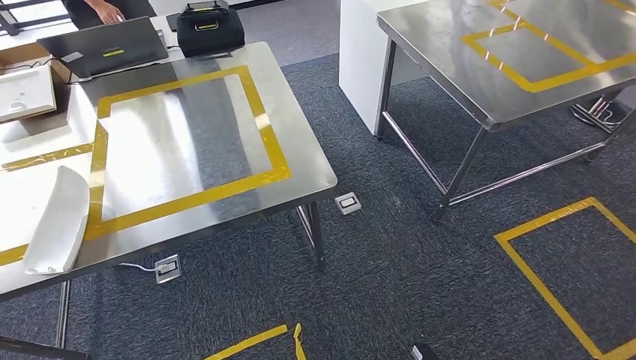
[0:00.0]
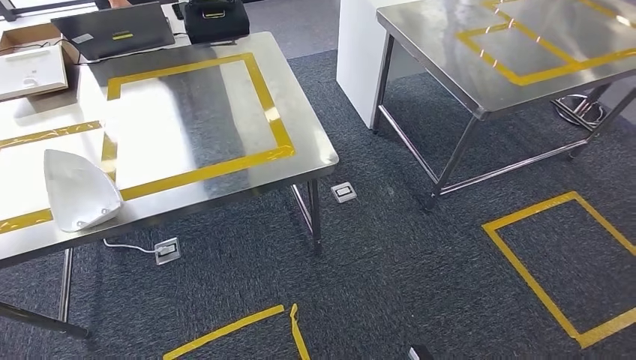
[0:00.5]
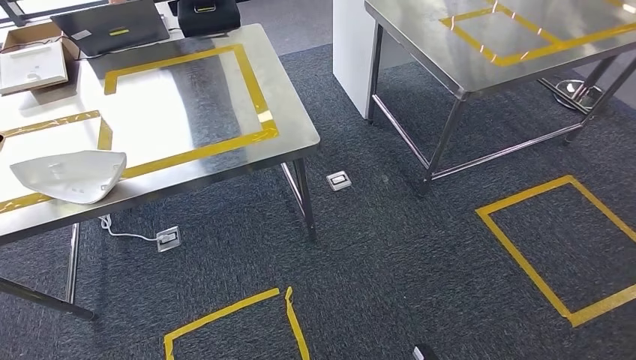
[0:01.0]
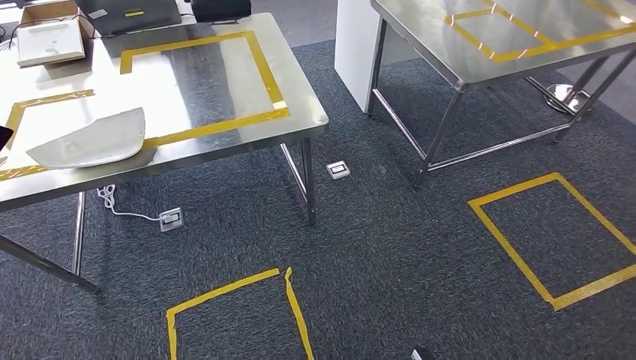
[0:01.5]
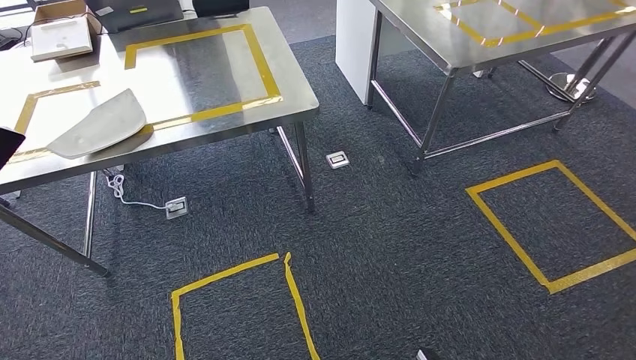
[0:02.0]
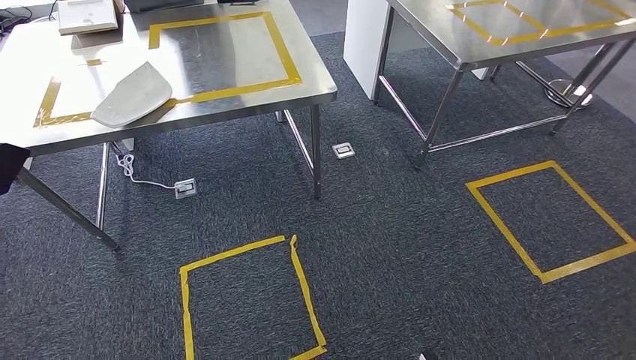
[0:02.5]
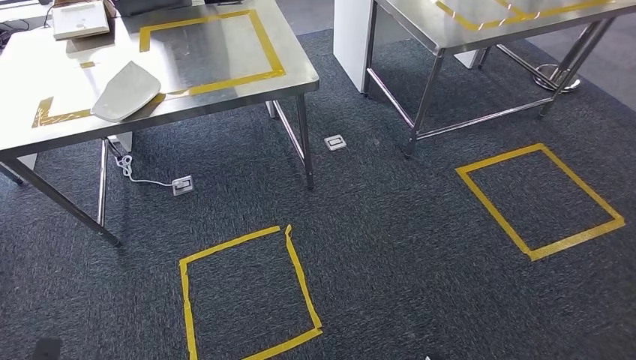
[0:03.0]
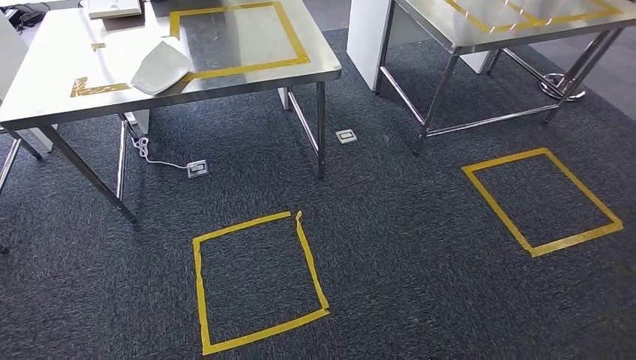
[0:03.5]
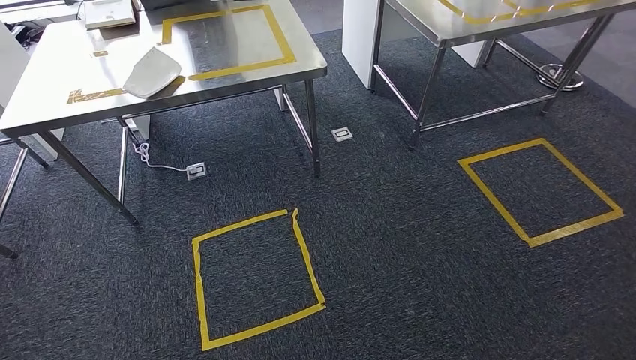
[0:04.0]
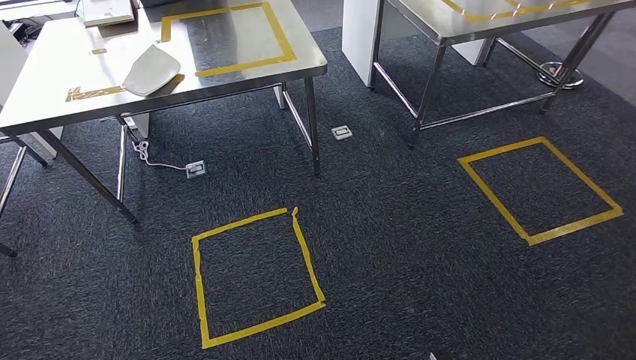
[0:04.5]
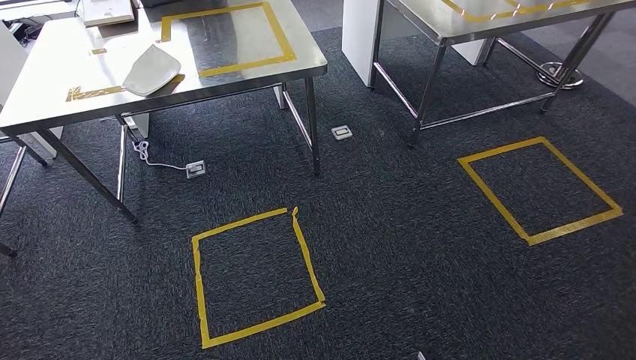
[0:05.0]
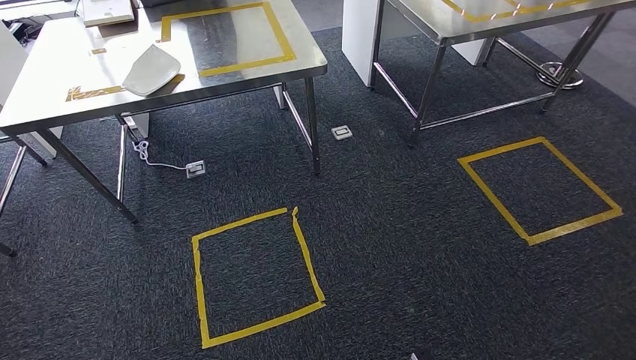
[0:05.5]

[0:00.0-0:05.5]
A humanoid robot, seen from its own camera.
Step, 0:00.0 to 0:05.5: Move to the initial position at the workbench.
